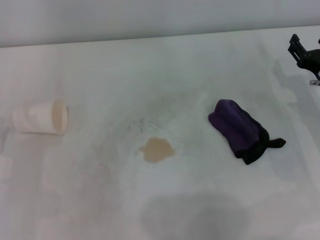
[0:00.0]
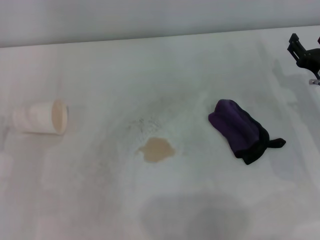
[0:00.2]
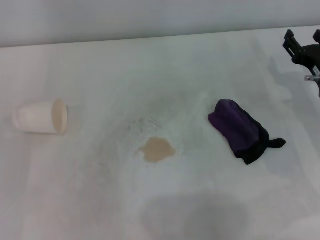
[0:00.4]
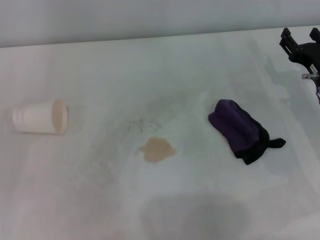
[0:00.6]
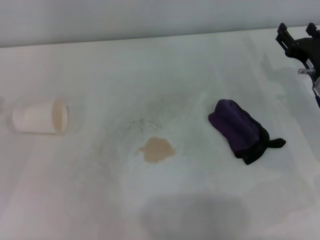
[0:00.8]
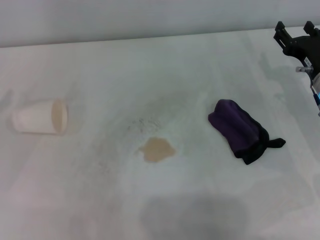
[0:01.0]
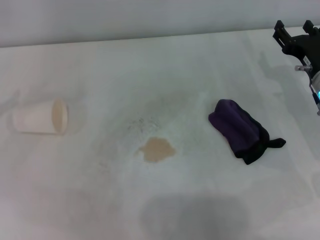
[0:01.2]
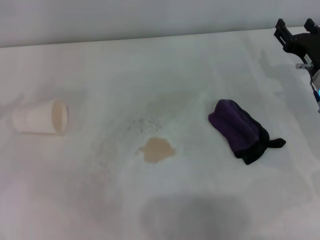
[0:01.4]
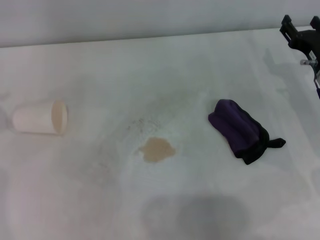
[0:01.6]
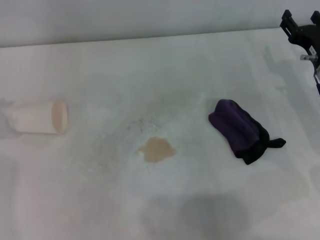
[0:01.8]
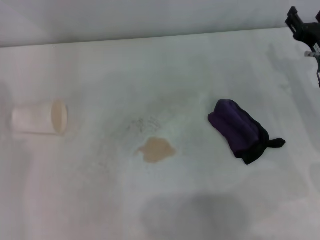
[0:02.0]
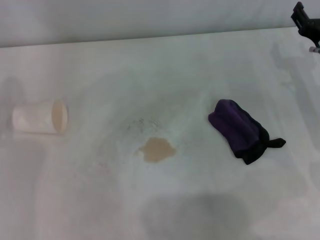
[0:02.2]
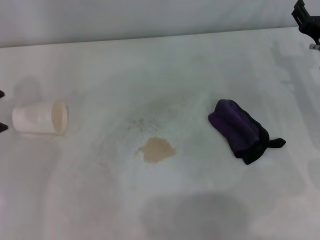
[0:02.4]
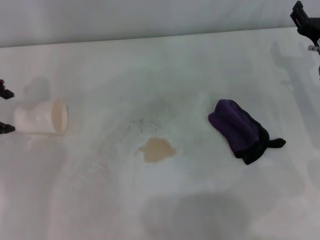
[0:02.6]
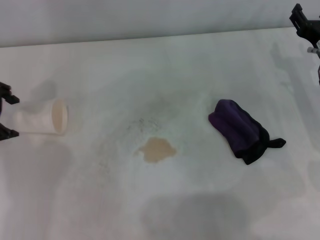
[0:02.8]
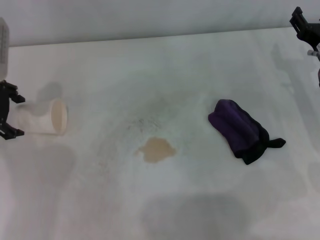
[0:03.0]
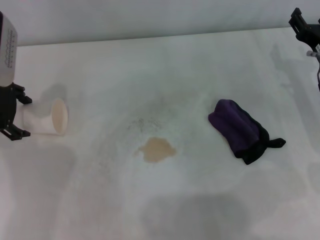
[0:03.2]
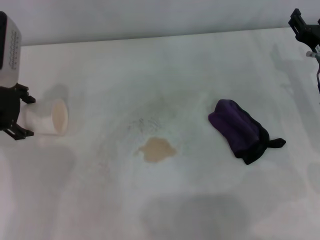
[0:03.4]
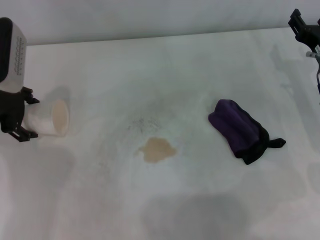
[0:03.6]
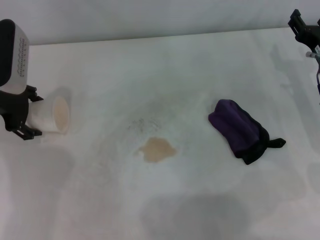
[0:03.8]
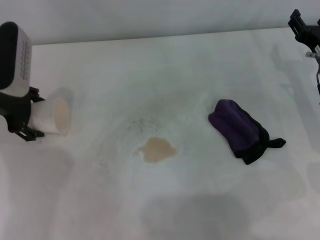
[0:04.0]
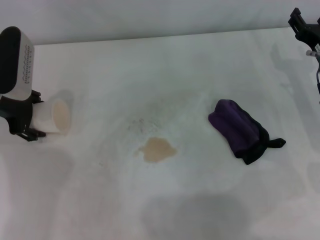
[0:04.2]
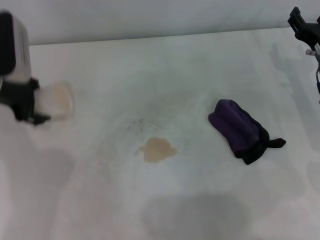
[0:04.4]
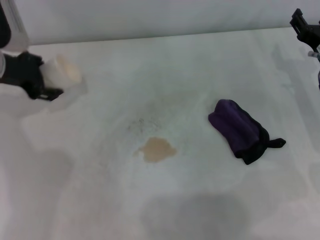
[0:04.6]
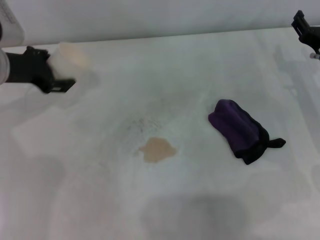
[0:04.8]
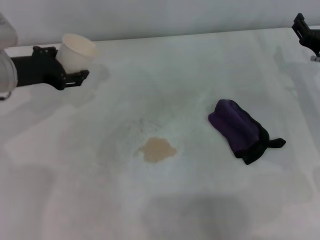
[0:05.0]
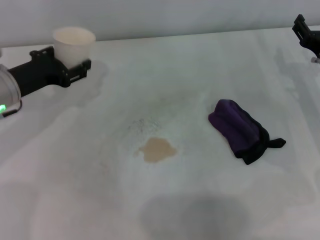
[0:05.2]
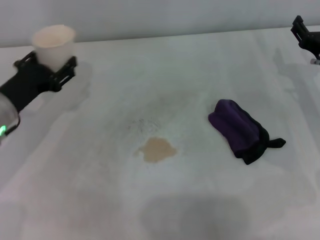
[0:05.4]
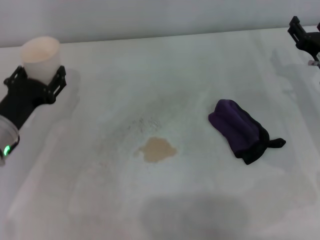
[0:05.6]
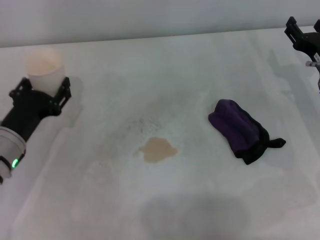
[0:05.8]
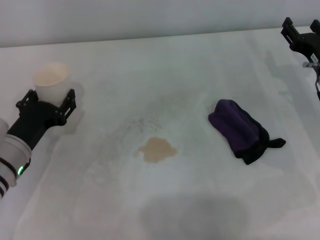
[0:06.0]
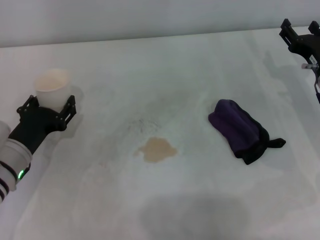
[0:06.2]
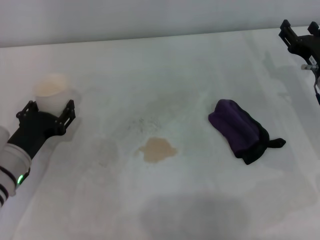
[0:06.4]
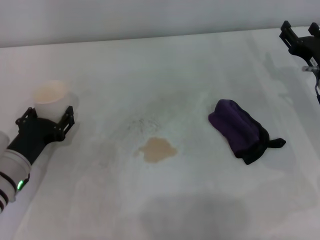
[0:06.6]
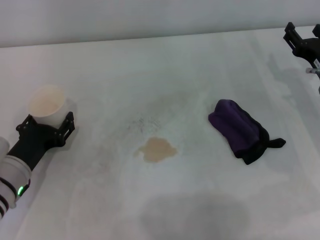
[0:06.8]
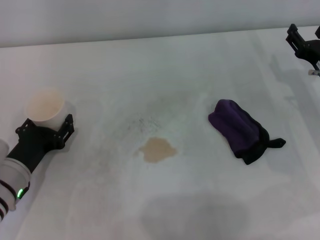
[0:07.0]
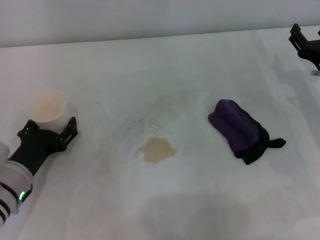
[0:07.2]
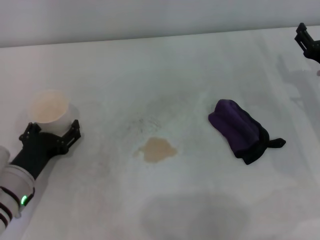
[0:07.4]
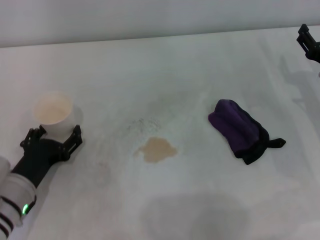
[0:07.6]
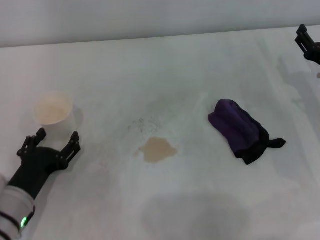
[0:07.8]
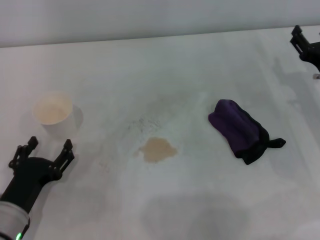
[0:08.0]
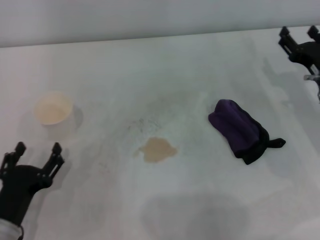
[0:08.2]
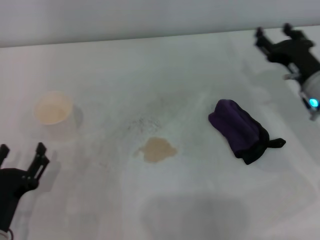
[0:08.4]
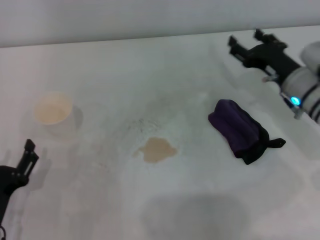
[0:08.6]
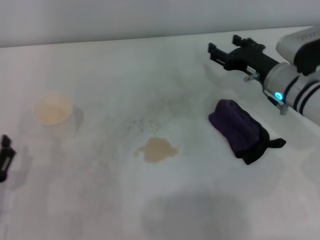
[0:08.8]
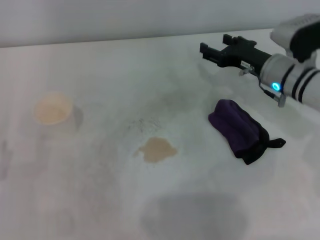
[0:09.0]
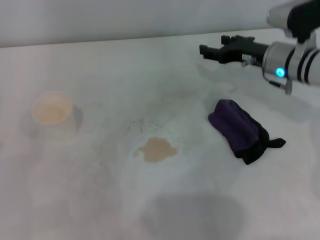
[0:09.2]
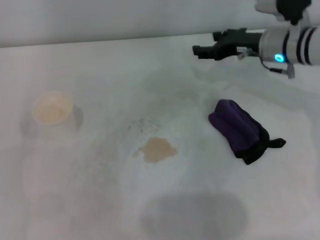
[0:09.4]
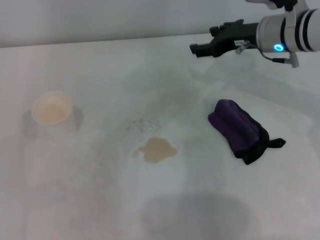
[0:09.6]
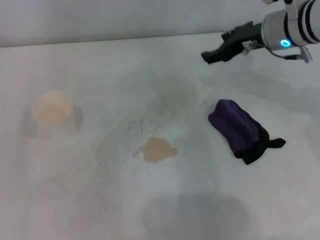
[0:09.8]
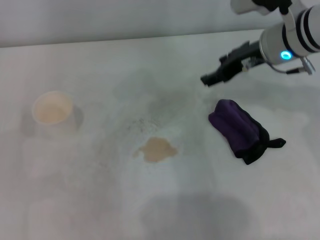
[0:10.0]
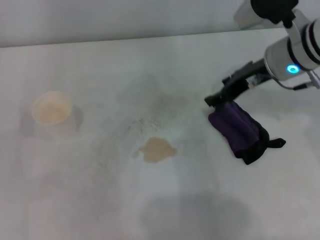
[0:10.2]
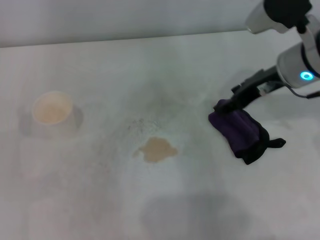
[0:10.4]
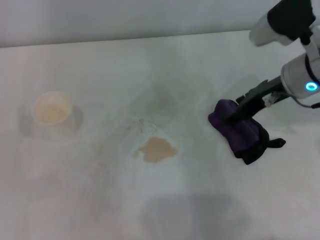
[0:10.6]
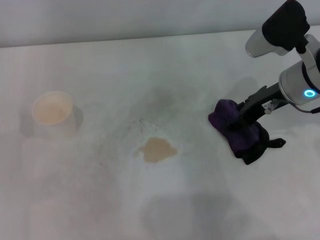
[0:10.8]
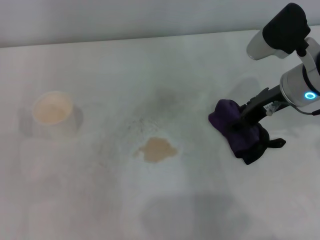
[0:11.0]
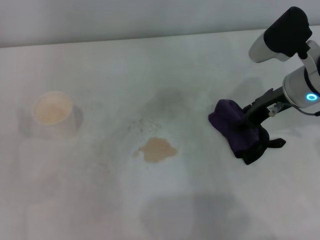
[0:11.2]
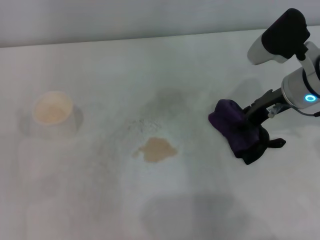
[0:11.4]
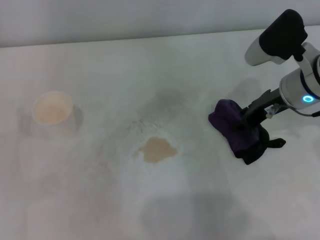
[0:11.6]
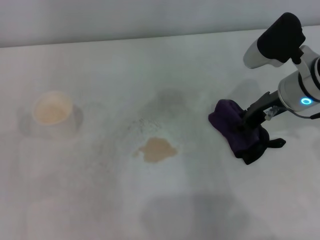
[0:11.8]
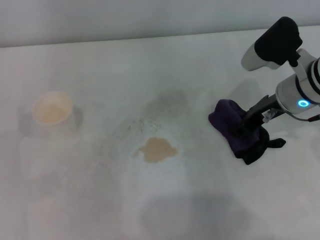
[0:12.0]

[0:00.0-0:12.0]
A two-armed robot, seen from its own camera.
Step, 0.0 to 4.0 s: Grasp the paper cup with the left gripper.
Step, 4.2 to 7.2 s: Stand the paper cup upright with the left gripper.
1.6 to 3.0 s: The left gripper heads to the right and forward, covering approximately 15 cm.
3.0 to 4.4 s: The left gripper closes up.
4.4 to 6.0 s: The left gripper moves downward and backward, roughly 15 cm.
6.0 to 7.6 s: The left gripper is displaced backward by approximately 5 cm, and opens up.
7.6 to 9.0 s: The left gripper goes some 10 cm backward and to the left. Meanwhile the right gripper travels to the left and forward by some 10 cm.
9.0 to 10.4 s: The right gripper shifts roughly 10 cm upward.
10.4 to 12.0 s: The right gripper closes its fingers.

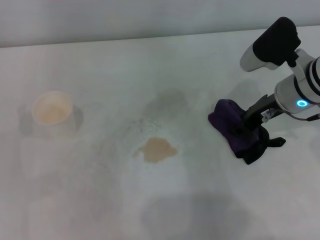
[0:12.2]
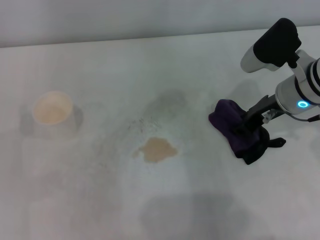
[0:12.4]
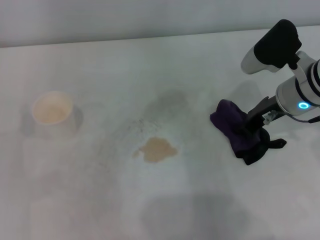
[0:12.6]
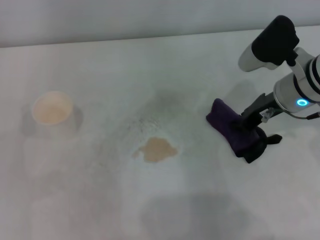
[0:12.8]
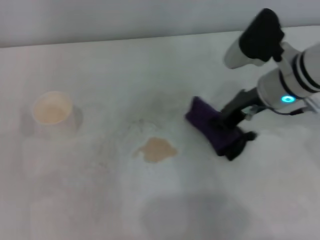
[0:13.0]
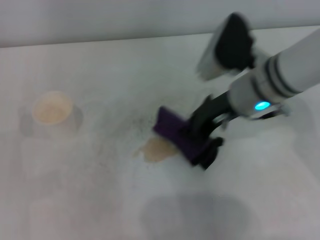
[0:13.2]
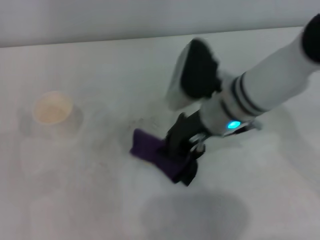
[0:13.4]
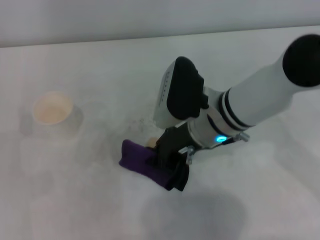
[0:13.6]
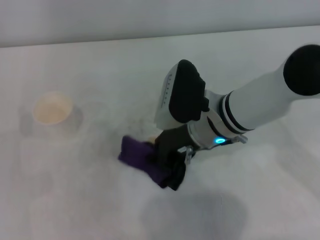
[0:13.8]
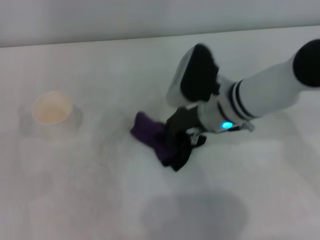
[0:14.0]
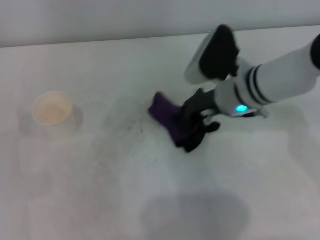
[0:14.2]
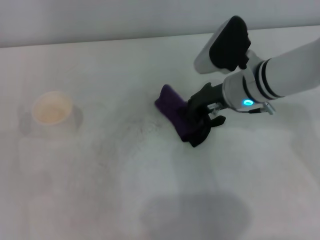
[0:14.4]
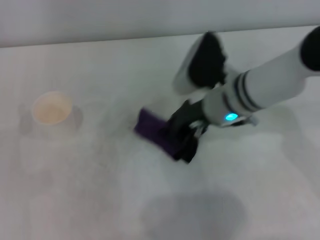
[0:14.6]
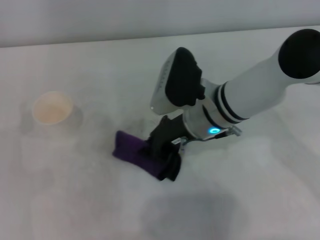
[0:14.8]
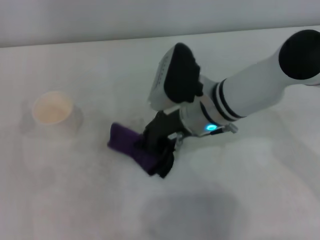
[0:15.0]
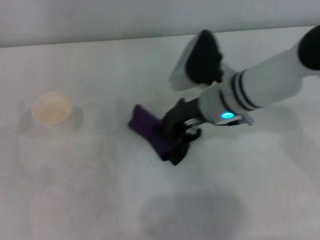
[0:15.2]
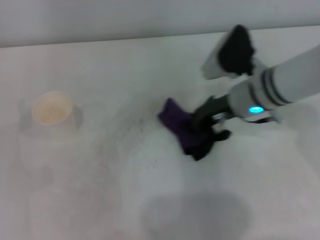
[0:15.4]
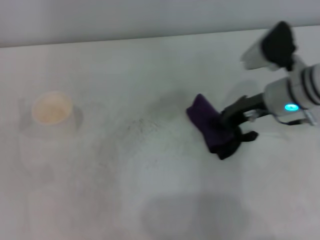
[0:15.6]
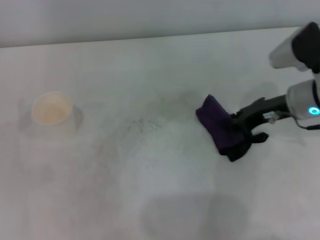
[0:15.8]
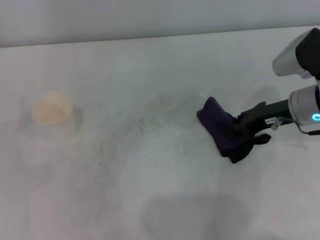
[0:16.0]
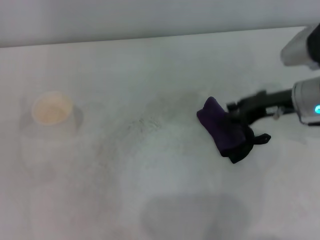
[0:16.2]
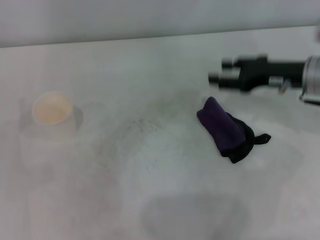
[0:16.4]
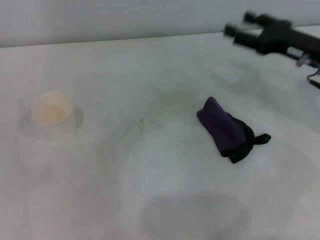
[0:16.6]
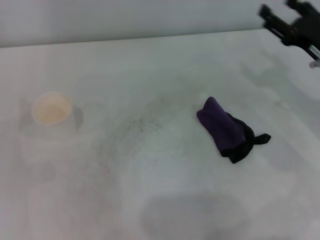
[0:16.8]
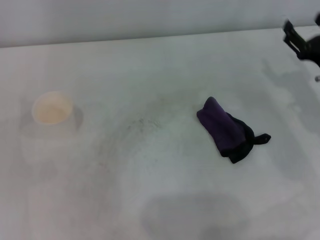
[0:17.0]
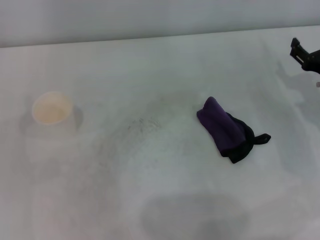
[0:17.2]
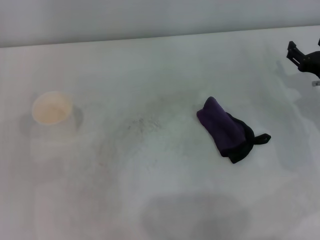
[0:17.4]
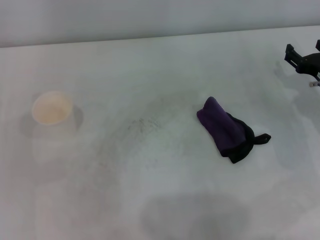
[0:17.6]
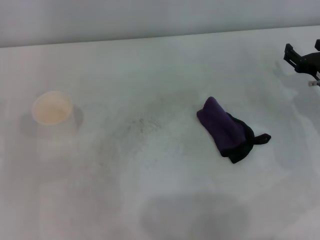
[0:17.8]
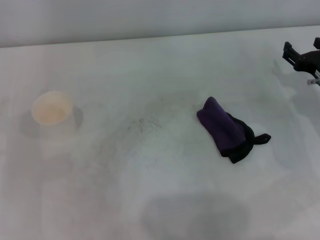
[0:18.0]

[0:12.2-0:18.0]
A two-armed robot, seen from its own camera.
Step, 12.8 to 15.2 s: Wipe the stains off the table with the right gripper.
Step, 15.4 to 16.0 s: Place the rag on the table with the right gripper.
12.2 to 13.6 s: The right gripper shifts about 15 cm to the left, and closes its fingers.
15.0 to 16.6 s: The right gripper travels to the right by some 20 cm, and opens.
16.6 to 18.0 s: The right gripper goes some 10 cm downward.

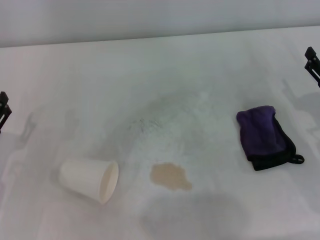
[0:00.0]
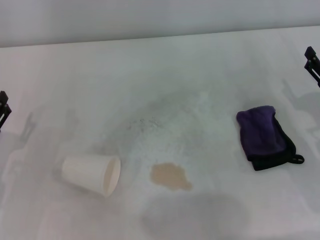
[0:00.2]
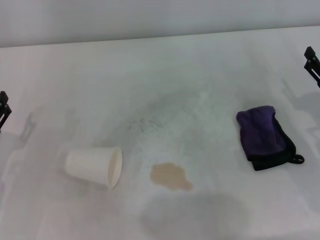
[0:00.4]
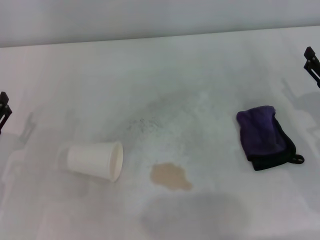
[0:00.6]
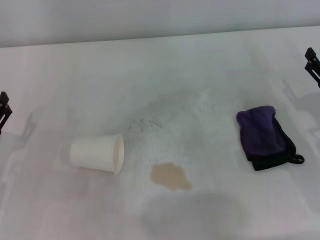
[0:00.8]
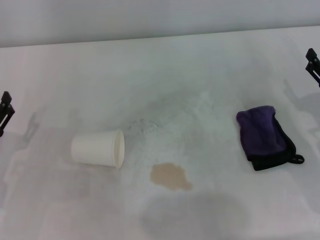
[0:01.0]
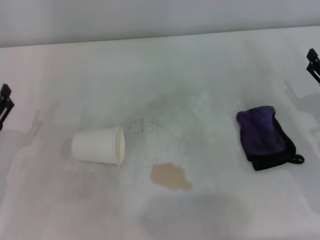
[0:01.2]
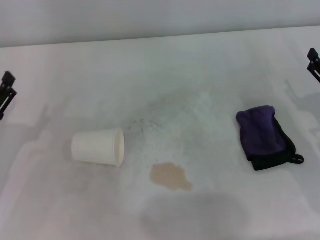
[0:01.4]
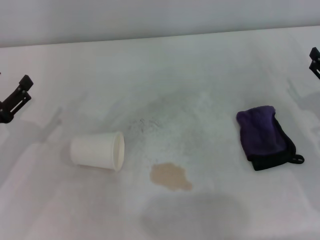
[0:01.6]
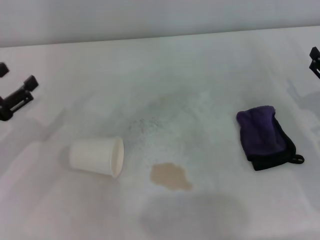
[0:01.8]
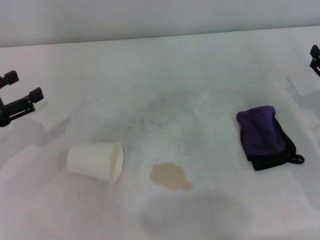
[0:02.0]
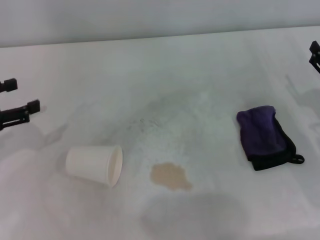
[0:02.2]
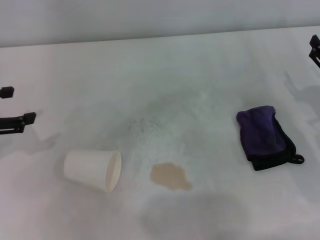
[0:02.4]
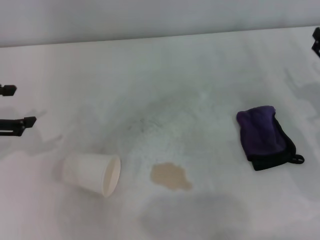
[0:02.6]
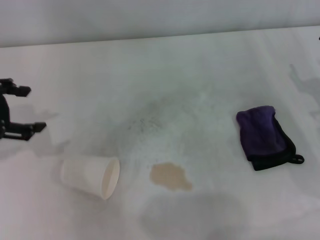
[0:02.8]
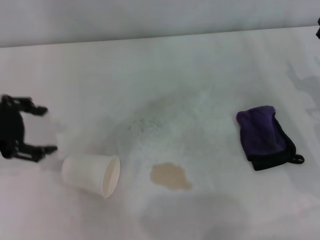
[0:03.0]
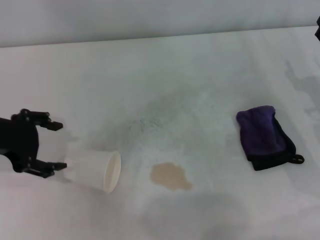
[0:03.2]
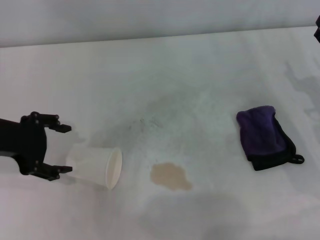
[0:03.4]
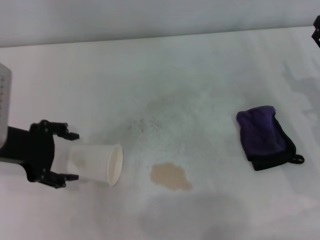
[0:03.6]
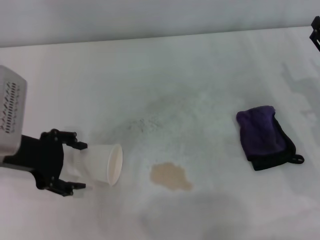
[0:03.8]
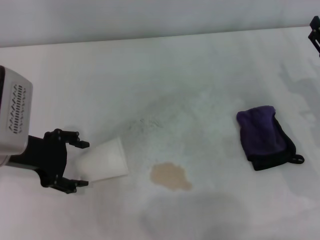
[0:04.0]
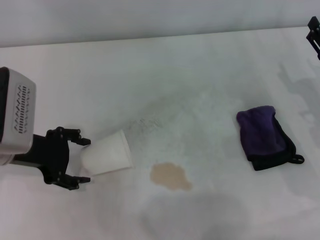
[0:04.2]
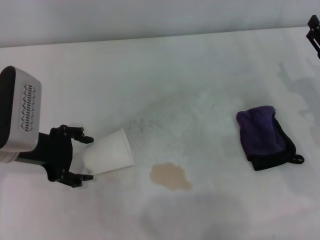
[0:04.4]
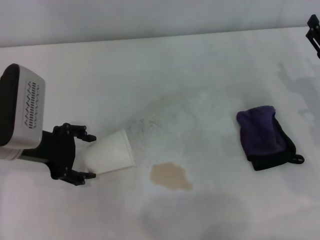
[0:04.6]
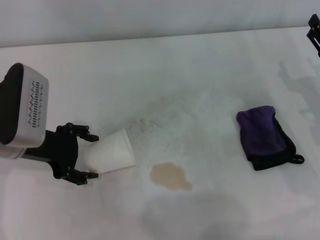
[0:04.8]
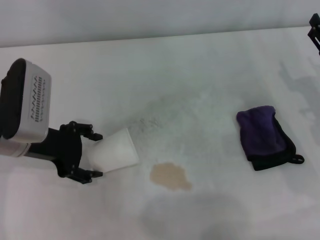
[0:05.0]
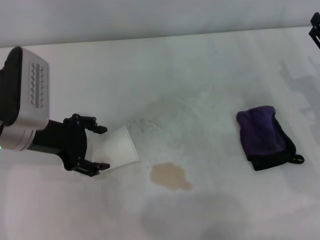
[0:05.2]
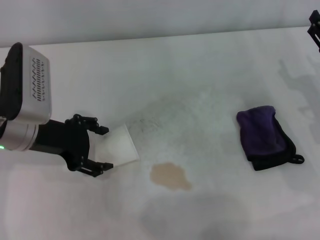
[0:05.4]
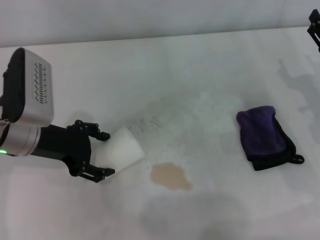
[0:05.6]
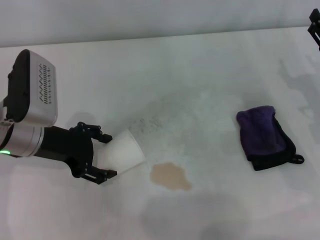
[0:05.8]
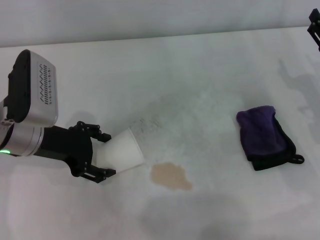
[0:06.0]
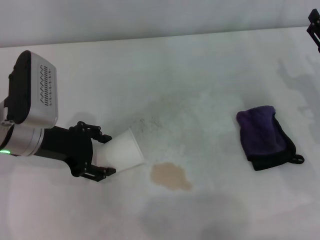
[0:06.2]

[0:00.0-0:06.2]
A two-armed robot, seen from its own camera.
Step, 0.0 to 6.2 s: Grasp the paper cup with the left gripper.
1.6 to 3.2 s: The left gripper shifts approximately 10 cm upward.
3.2 to 4.6 s: The left gripper goes some 5 cm downward.
4.6 to 6.2 s: There are only small adjustments of the grippers.
